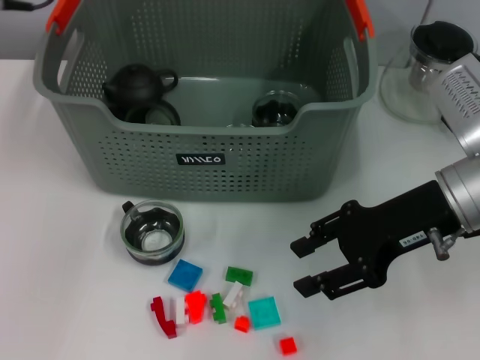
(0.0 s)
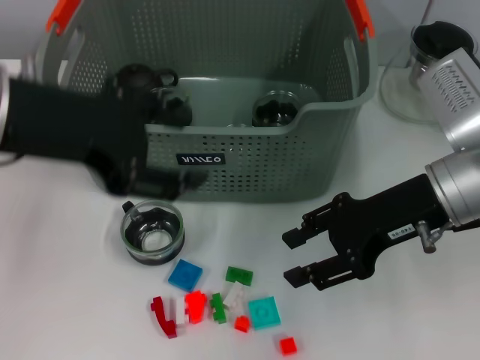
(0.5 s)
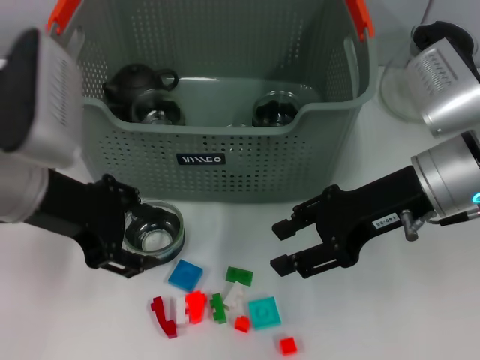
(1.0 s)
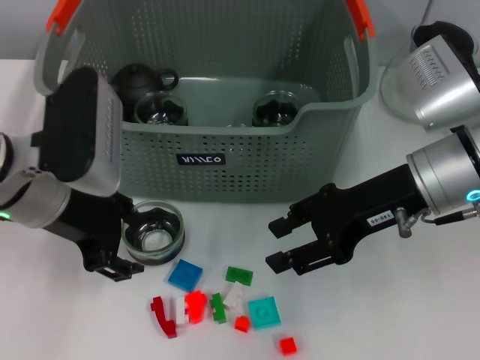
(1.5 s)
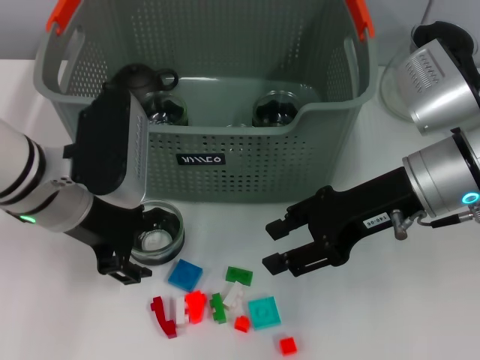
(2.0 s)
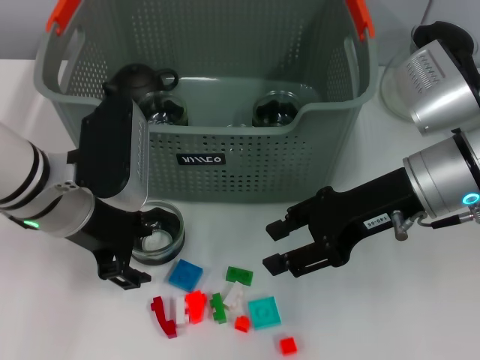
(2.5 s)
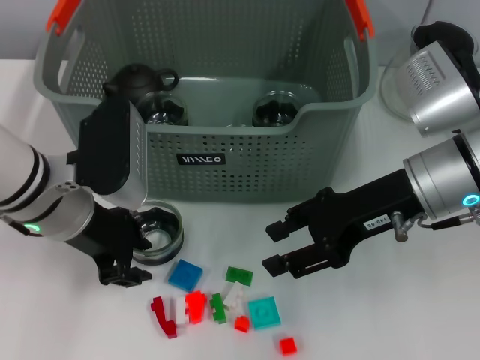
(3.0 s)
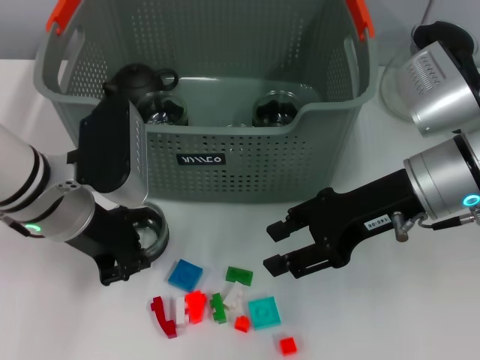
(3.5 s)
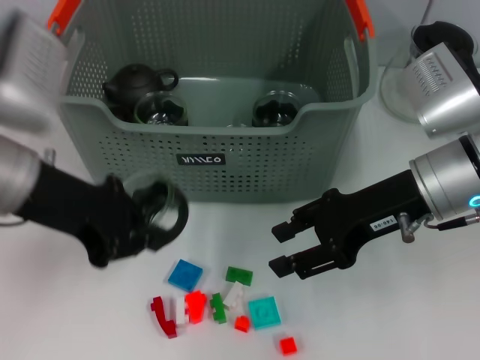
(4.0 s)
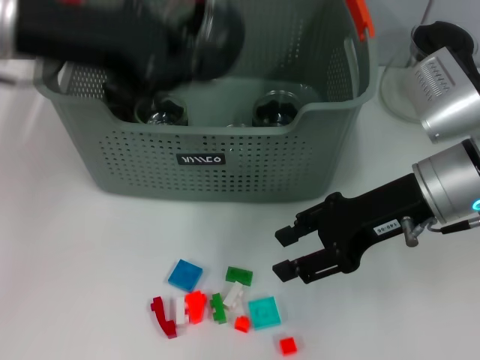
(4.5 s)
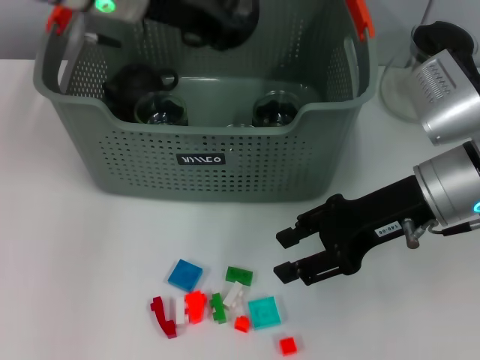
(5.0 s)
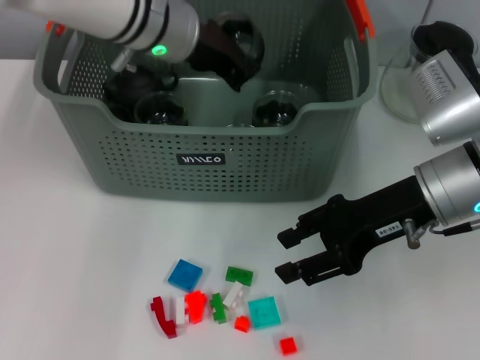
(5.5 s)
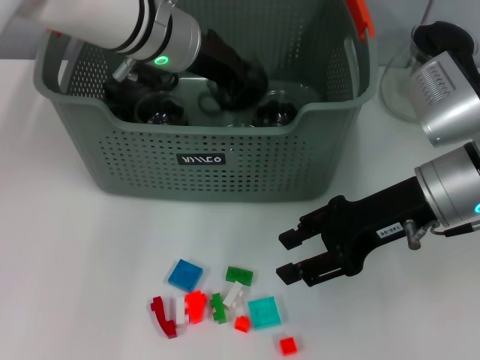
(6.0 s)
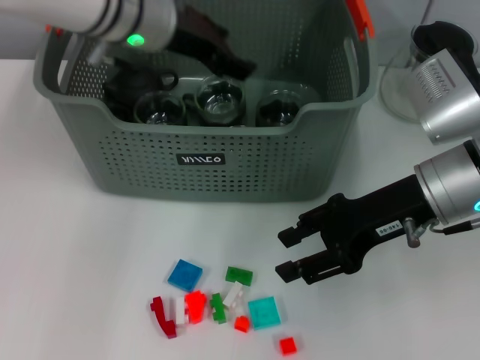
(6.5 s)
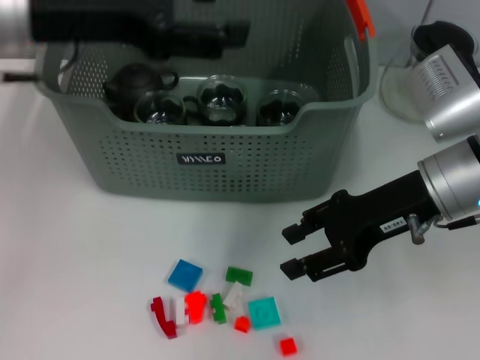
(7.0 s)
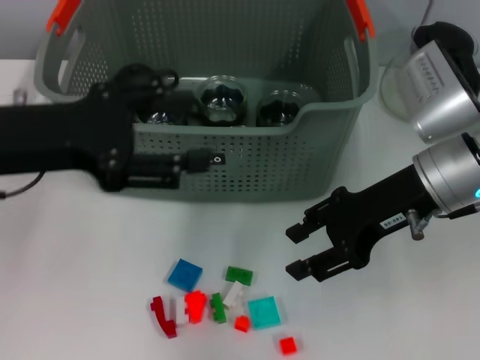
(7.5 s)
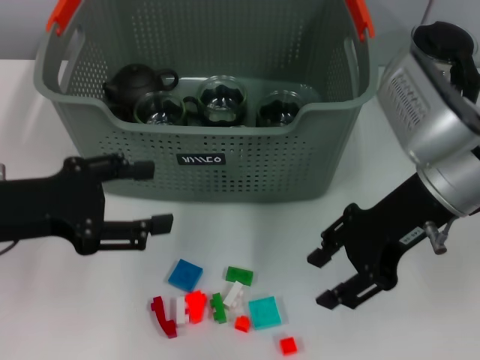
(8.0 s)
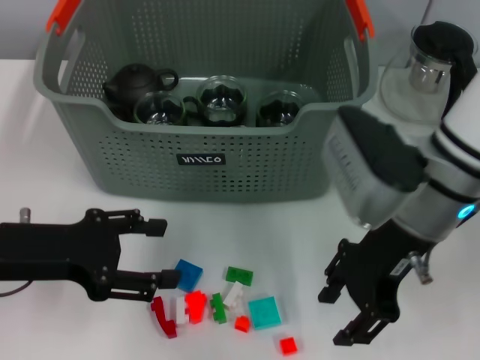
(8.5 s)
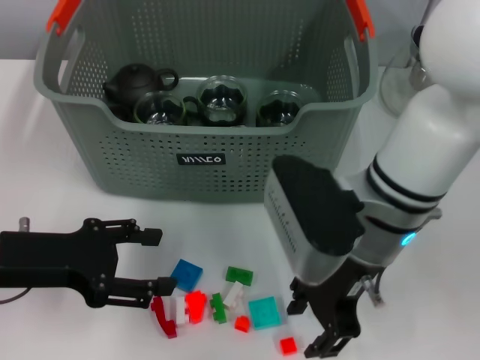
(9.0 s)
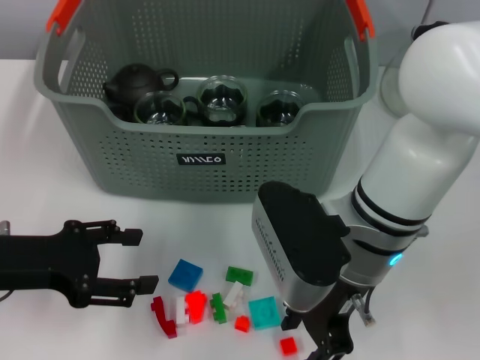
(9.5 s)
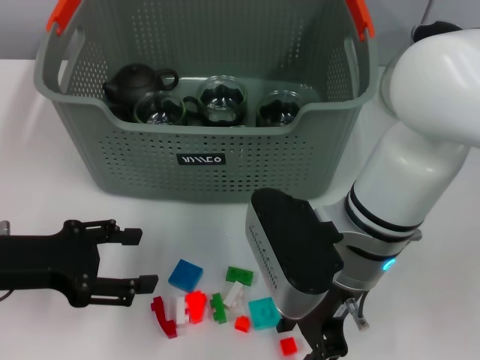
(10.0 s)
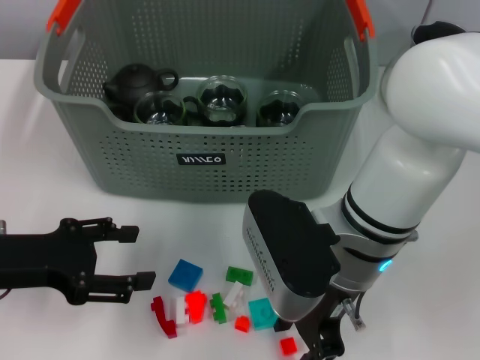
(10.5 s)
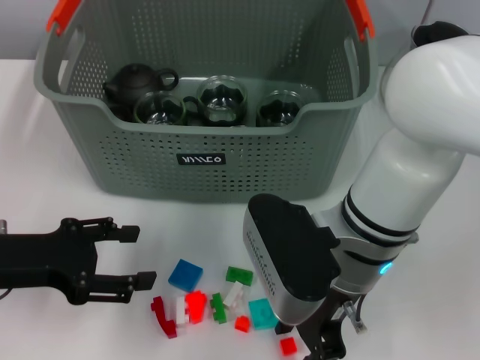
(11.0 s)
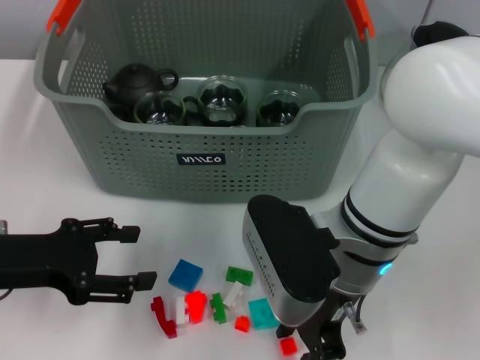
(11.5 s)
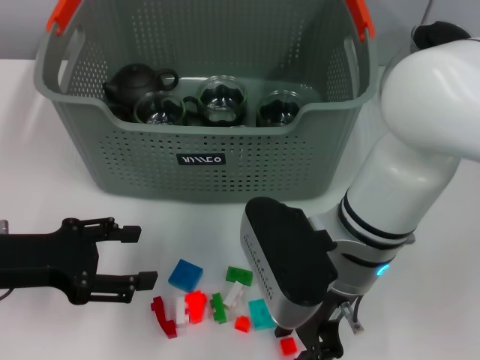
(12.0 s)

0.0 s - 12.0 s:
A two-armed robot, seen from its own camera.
Task of the whole recording: pick up the teacup on the table and place it into the storage bin, pick up the block on the table and place it into the storage bin.
Step, 0.0 s - 3.5 s: Grasp the cup with left gripper.
Step, 4.0 s - 6.5 s: Place the cup in the storage box with left gripper.
0.0 s - 2.0 s: The left gripper travels downward by approximately 15 cm.
2.0 s - 4.0 s: The left gripper goes some 5 cm upward, and closes.
4.0 s - 6.0 s: The left gripper is displaced forward and to the right by some 20 cm.
6.0 s - 8.0 s: The left gripper travels backward and to the left by some 25 cm, and opens up.
8.0 s - 10.0 s: The right gripper goes approximately 10 cm to the left.
10.0 s - 12.0 s: Both grippers stay put.

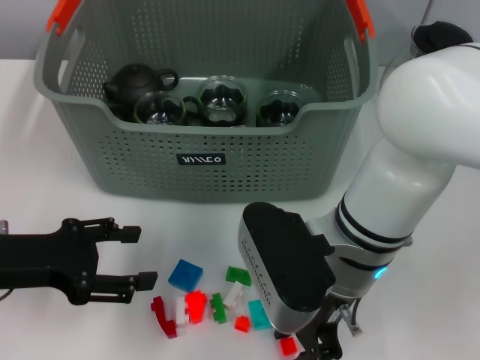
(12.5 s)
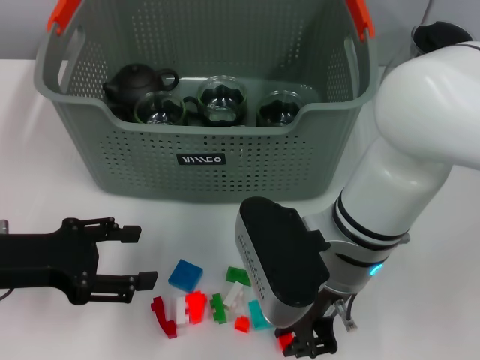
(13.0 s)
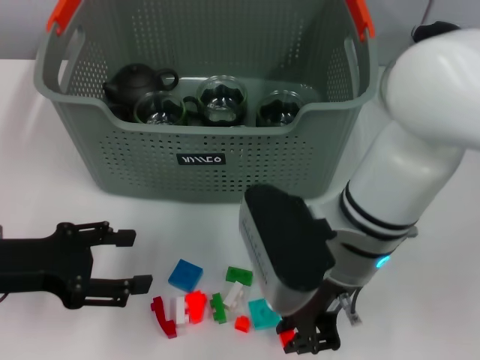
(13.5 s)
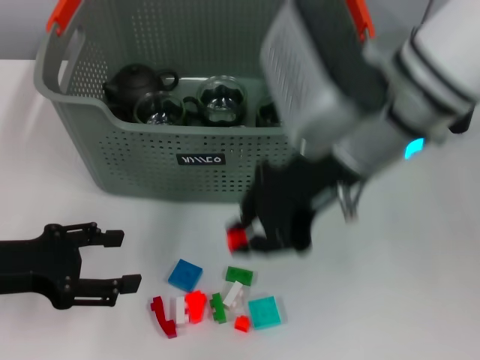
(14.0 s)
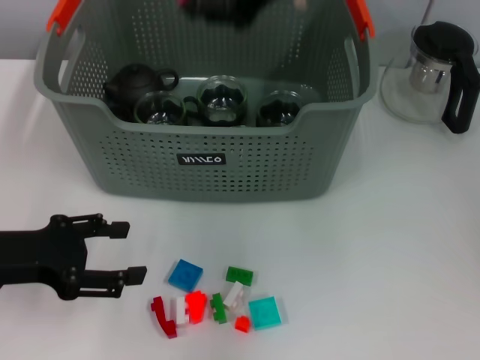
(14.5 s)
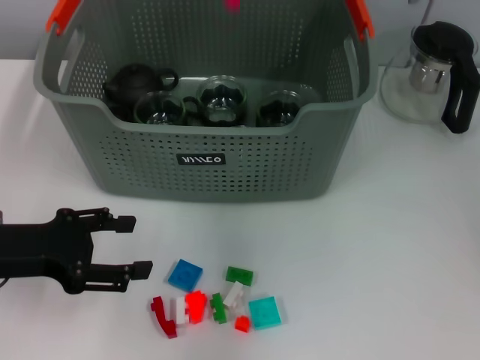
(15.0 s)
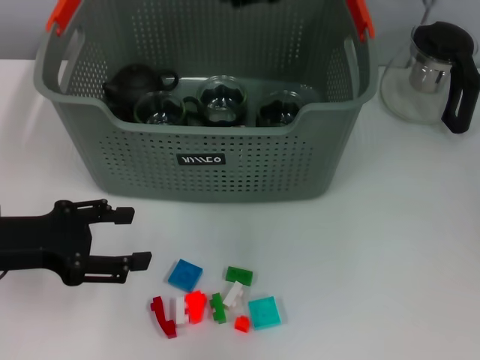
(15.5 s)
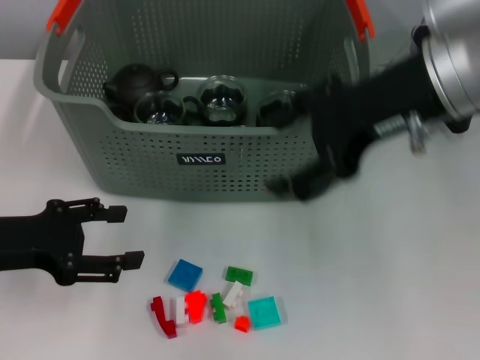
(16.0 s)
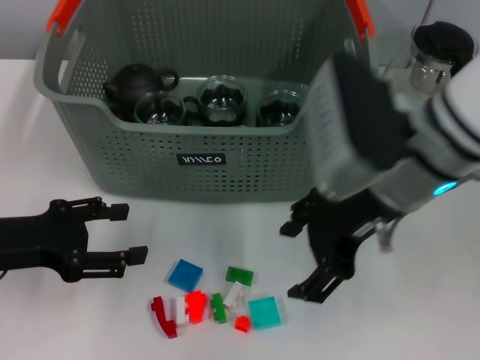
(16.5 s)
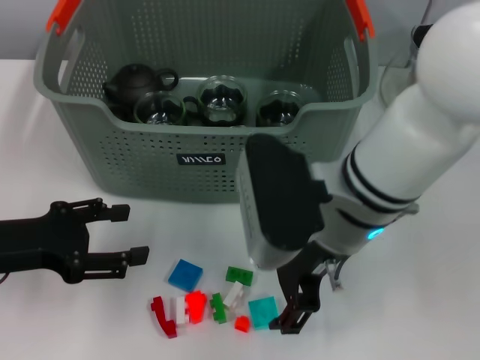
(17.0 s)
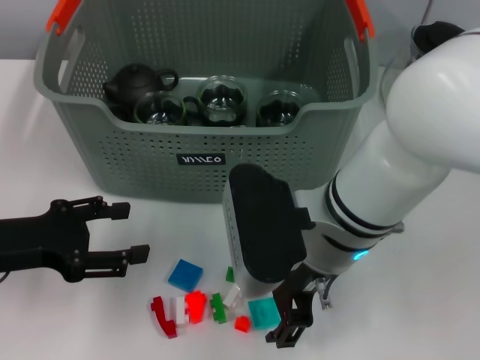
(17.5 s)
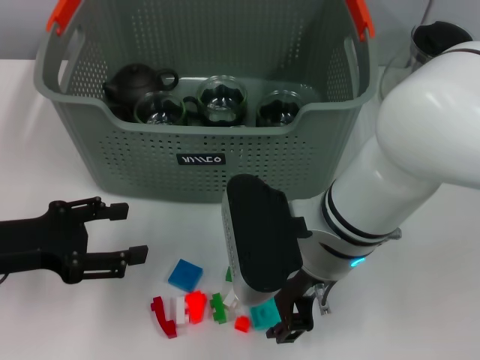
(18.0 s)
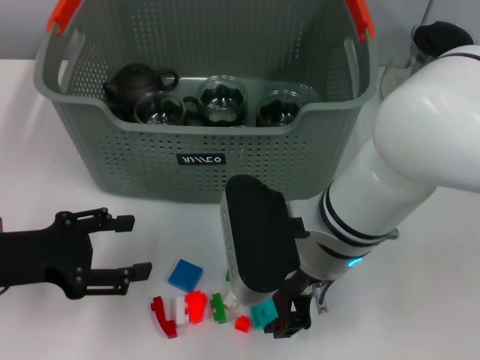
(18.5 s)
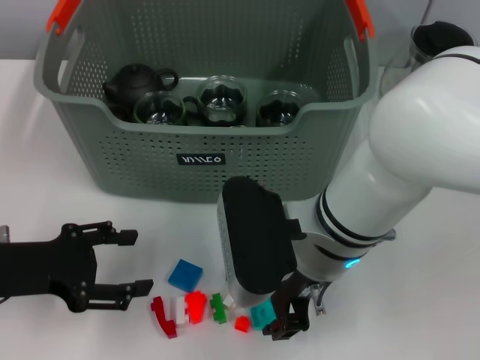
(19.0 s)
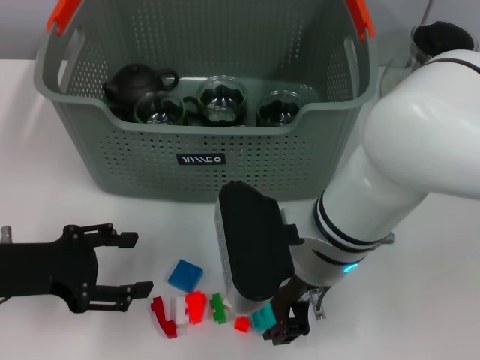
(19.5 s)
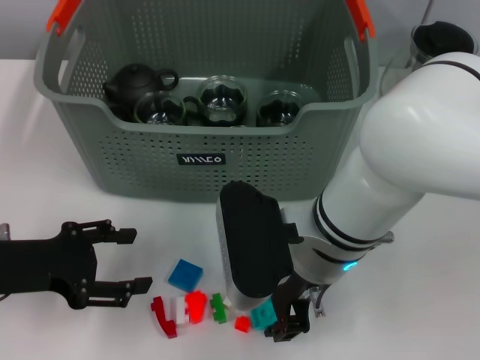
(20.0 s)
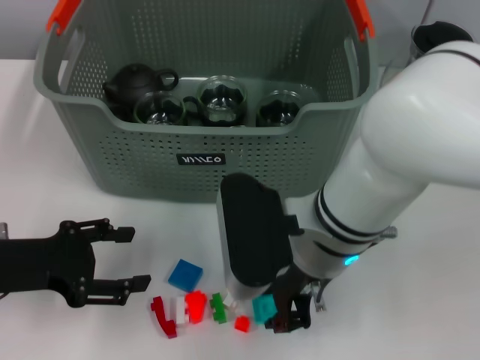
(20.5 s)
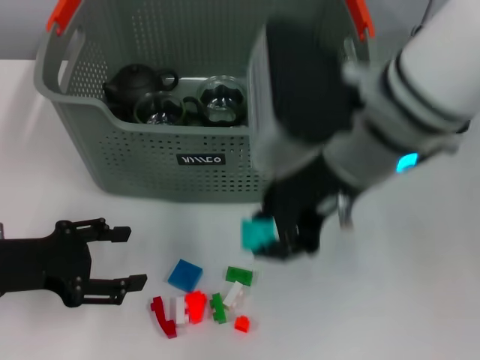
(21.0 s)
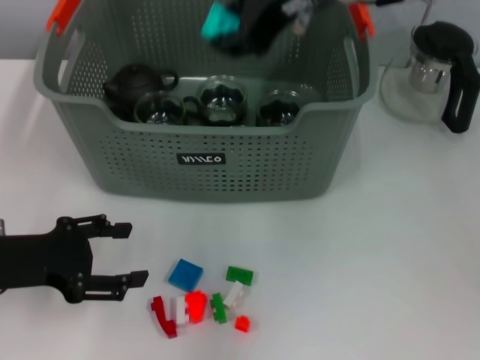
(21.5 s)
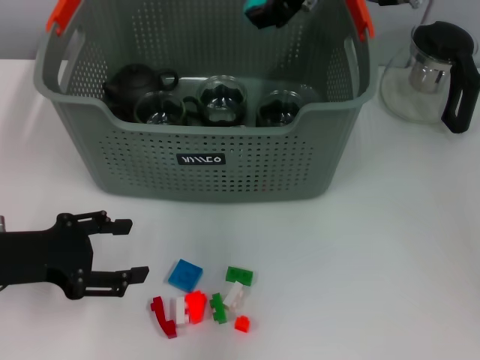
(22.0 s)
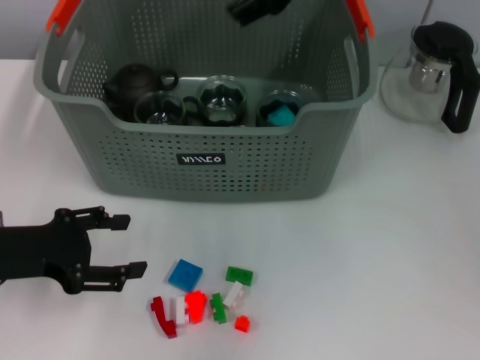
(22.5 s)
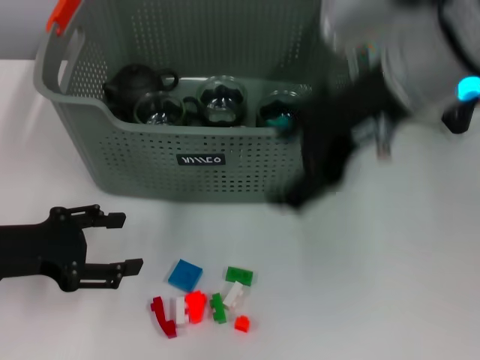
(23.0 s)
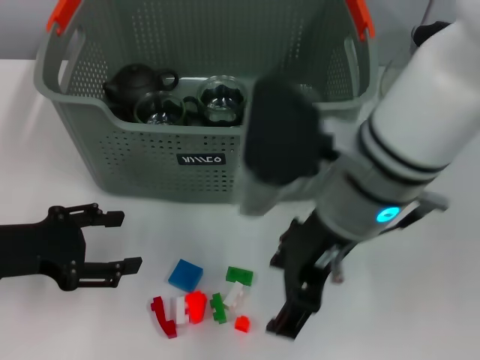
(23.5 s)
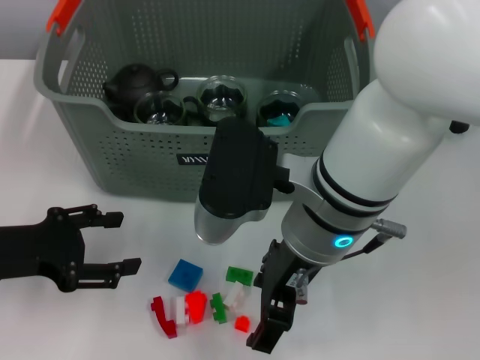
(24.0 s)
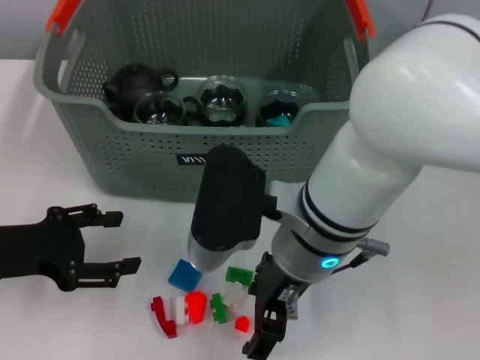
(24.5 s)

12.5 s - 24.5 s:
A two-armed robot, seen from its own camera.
Task of the whole recording: pick up the teacup on the table and place it into the storage bin, pick up the block on the table and place it into the storage bin.
Step, 13.0 s - 15.0 s: Place the orange block in the storage box with right gripper.
Step, 15.5 s - 20.0 s: Grasp the light blue block with right gripper.
Step, 20.5 s - 22.5 s: Place the light blue block in the storage box with right gripper.
12.5 s - 14.5 s: The right gripper travels upward and forward by approximately 20 cm.
14.5 s - 16.5 s: The right gripper moves downward and backward, roughly 15 cm, and opens.
16.5 s - 18.5 s: The right gripper goes approximately 10 cm downward and to the left, and closes its fingers.
18.5 s - 20.5 s: The grippers move only a little.
20.5 s - 22.5 s: The right gripper goes some 20 cm upward and forward, and opens.
22.5 s - 24.5 s: The right gripper travels backward, downward and to the left by roughly 20 cm.

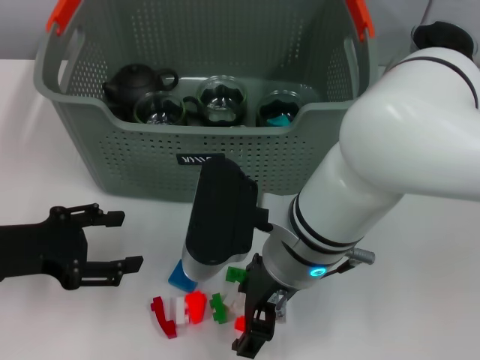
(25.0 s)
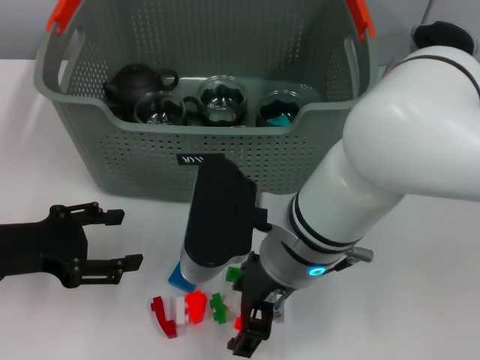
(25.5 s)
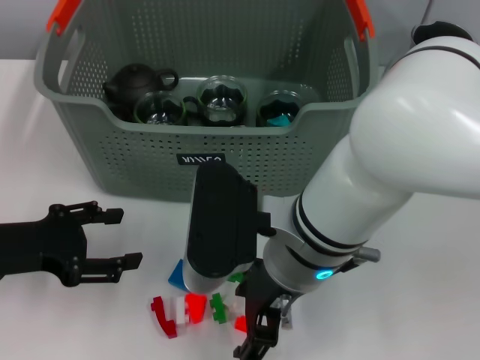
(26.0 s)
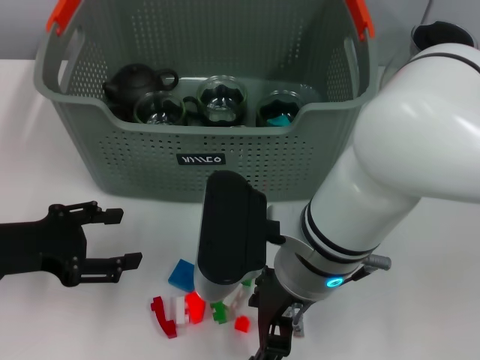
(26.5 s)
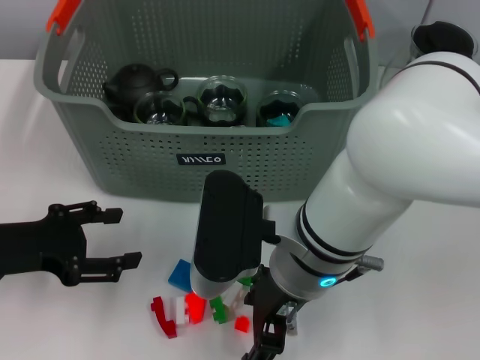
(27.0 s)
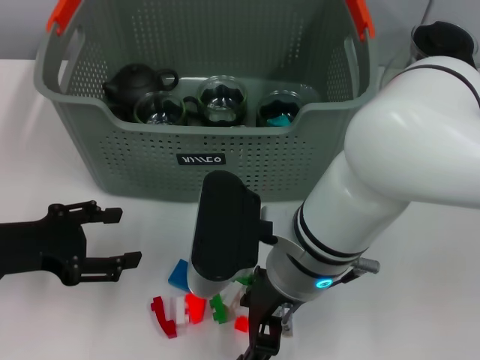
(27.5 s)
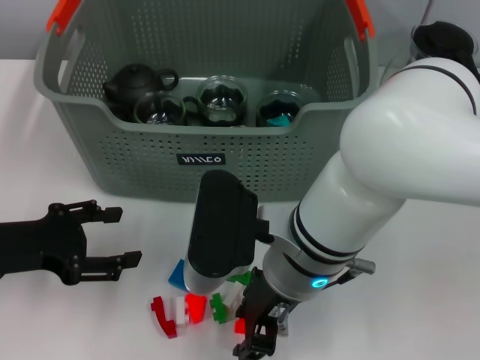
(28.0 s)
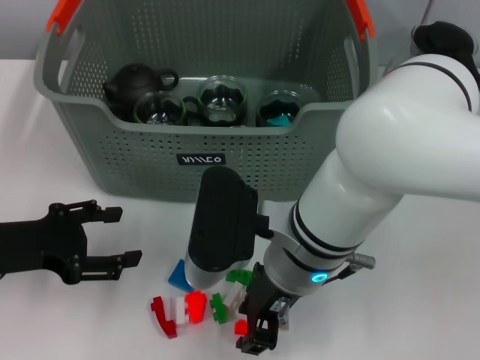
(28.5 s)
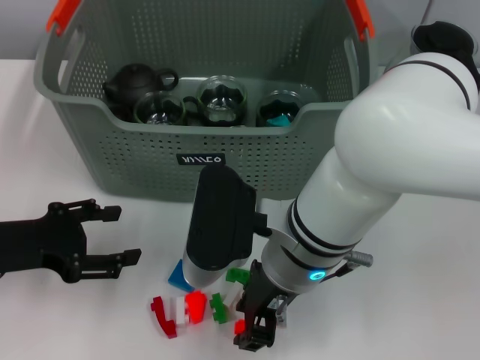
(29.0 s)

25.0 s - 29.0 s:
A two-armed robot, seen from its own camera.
Task of the whole recording: pick up the teacup on the table and place it into the storage bin, pick up the block on the table and place it into the storage bin.
25.0 s - 27.0 s: The grippers stay close to where they were, moving slightly.
27.0 s - 29.0 s: The right gripper closes up.
